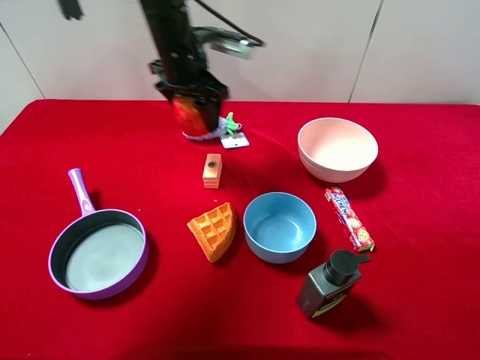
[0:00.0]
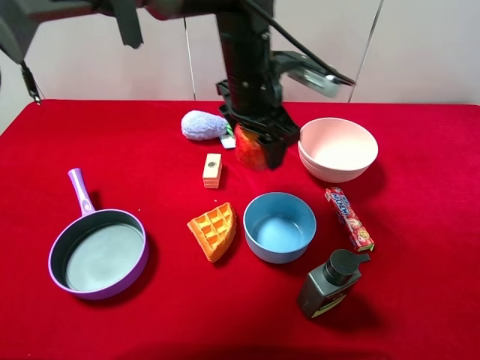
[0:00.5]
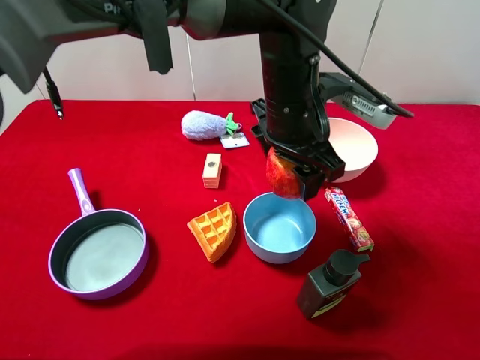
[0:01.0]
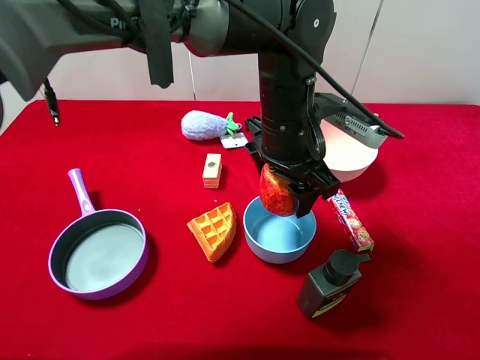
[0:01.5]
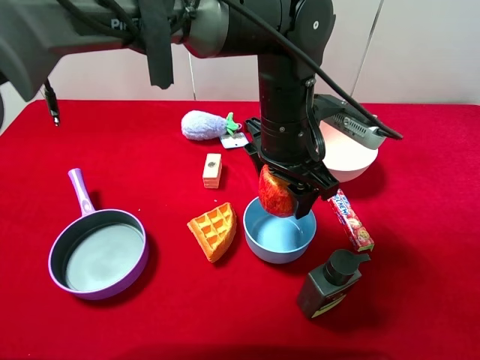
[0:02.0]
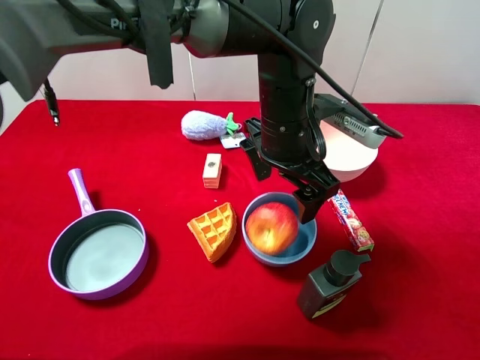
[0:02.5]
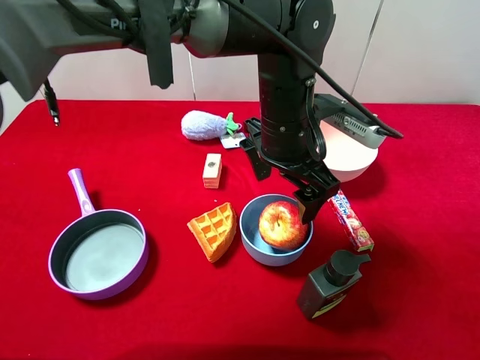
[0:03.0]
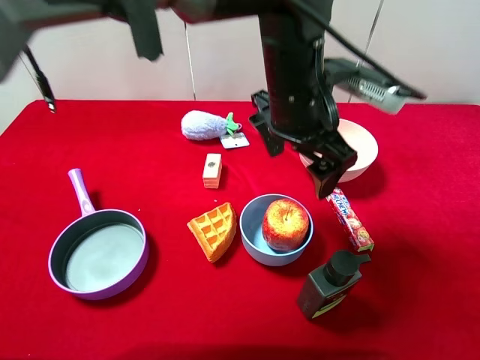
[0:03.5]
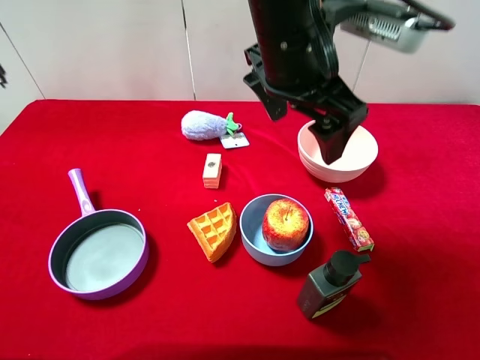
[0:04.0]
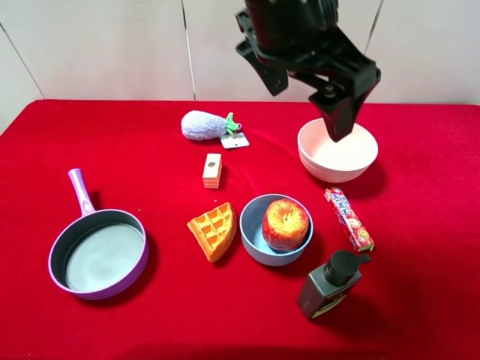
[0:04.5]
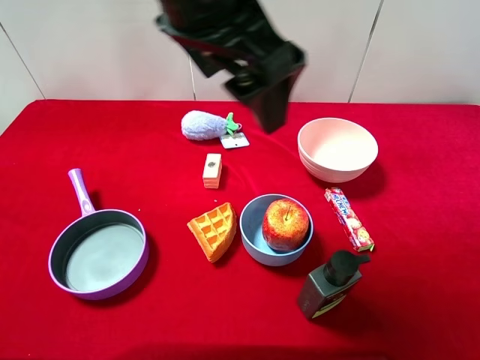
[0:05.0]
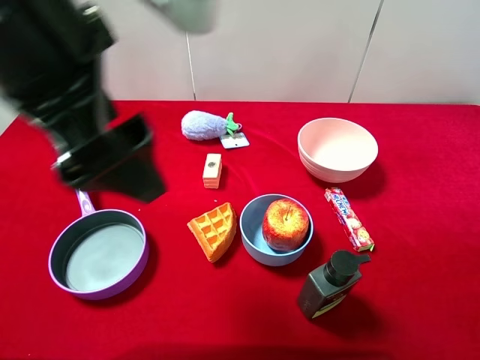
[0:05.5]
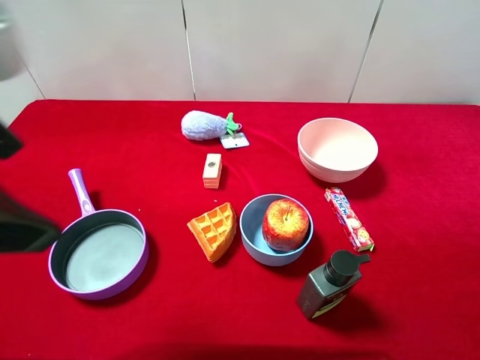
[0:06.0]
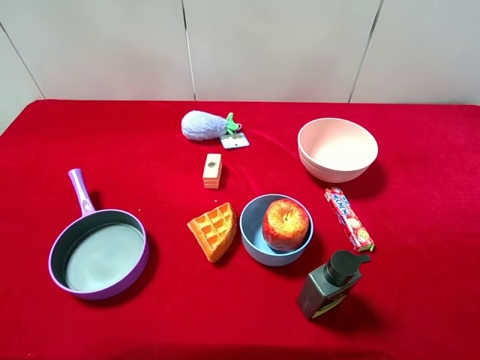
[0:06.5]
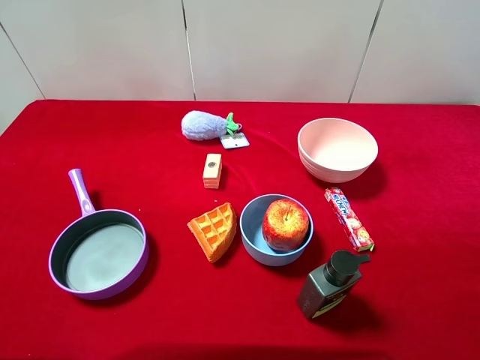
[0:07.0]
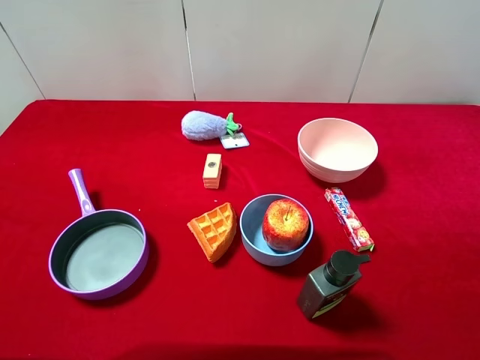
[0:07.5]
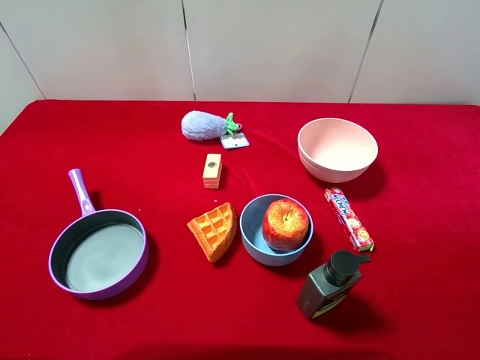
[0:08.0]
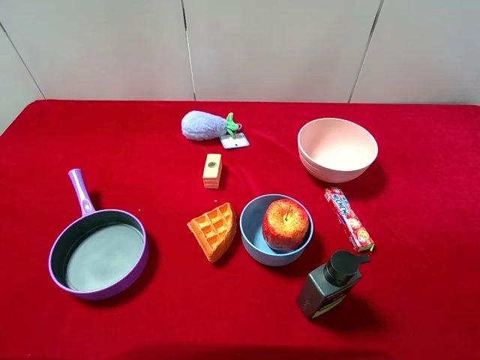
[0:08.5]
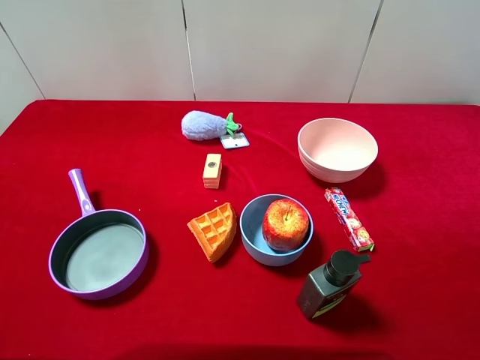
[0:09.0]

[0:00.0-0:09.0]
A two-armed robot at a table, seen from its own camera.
Task of the whole recording: pick up an item with a gripper and place it in a random container on the desktop.
0:00.0 to 0:02.0: The left gripper is displaced to the right and backward by about 20 cm.
0:02.0 to 0:04.5: The left gripper shifts some 15 cm upward, and opens up.
0:04.5 to 0:07.0: The left gripper shifts about 40 cm to the left and backward.
